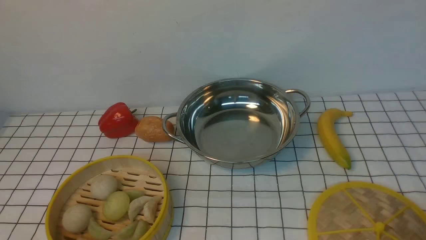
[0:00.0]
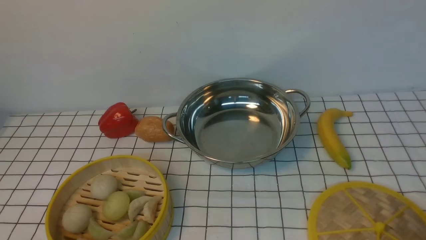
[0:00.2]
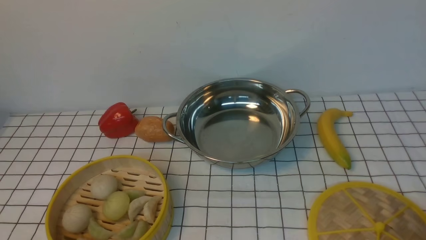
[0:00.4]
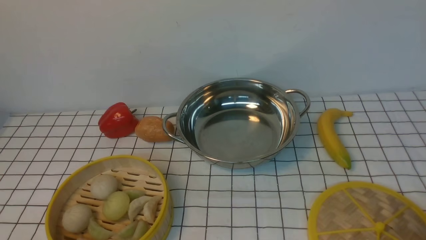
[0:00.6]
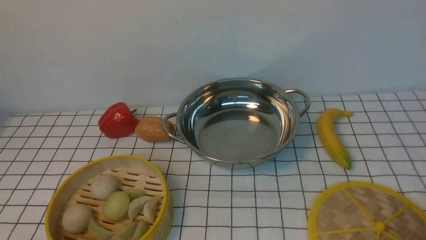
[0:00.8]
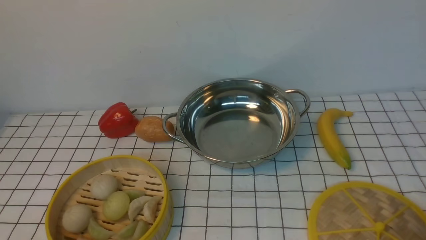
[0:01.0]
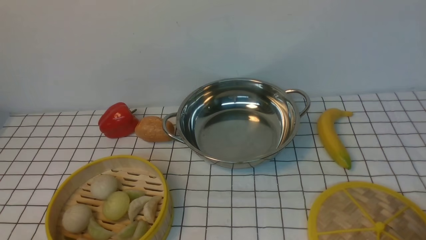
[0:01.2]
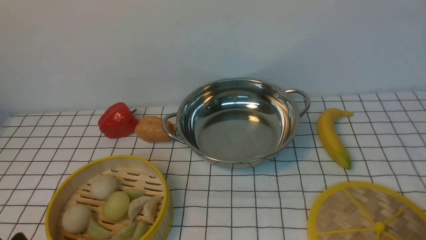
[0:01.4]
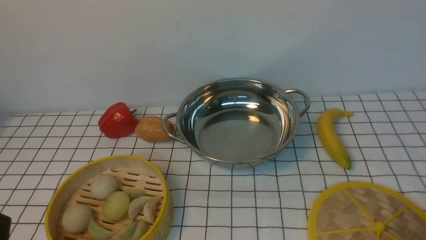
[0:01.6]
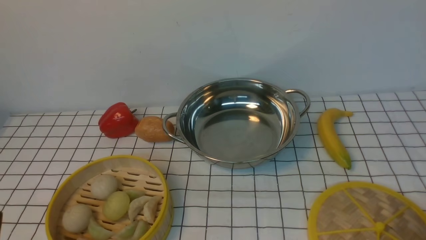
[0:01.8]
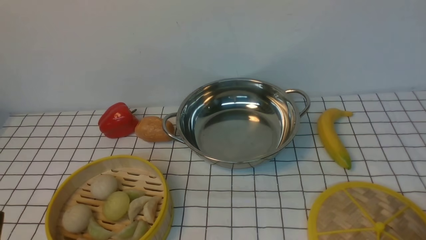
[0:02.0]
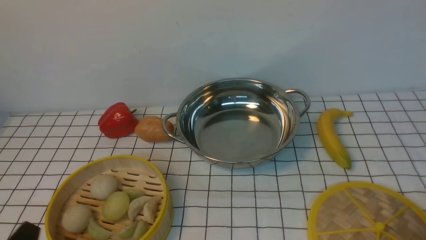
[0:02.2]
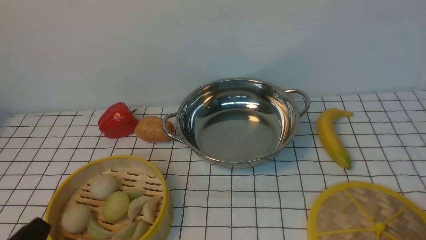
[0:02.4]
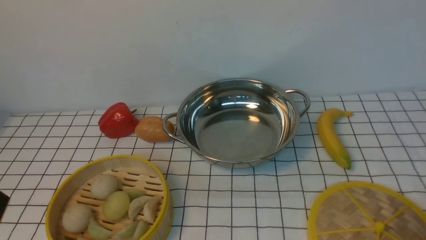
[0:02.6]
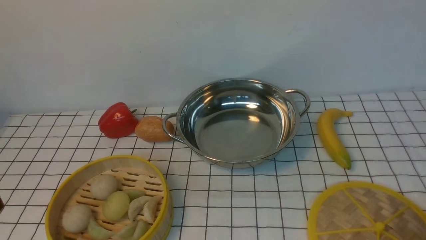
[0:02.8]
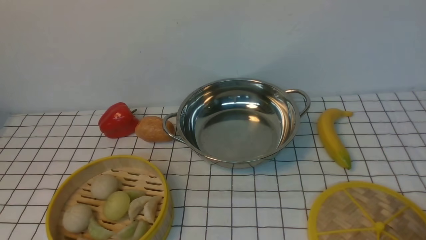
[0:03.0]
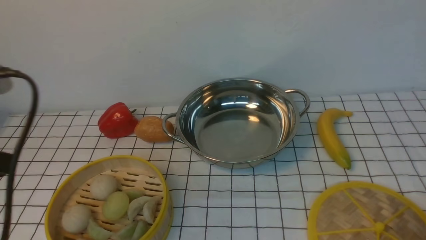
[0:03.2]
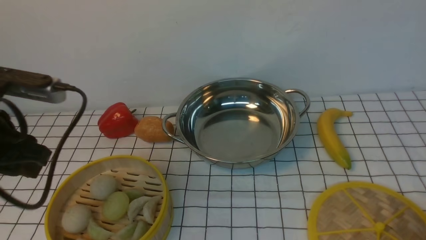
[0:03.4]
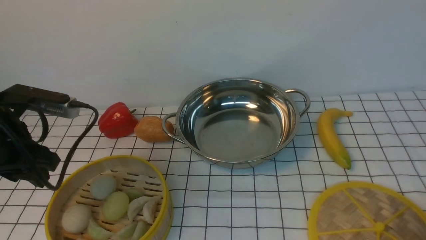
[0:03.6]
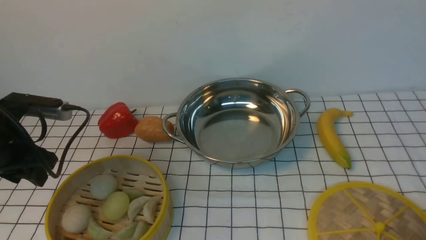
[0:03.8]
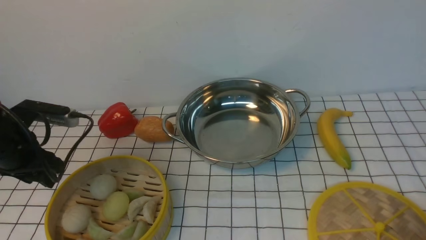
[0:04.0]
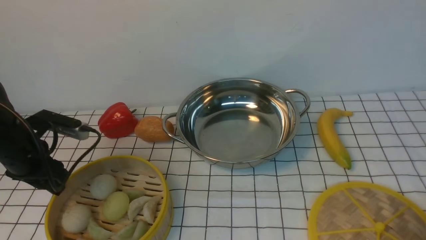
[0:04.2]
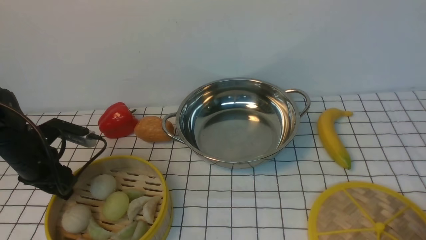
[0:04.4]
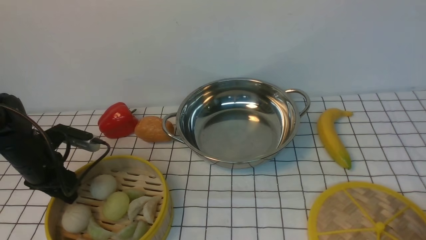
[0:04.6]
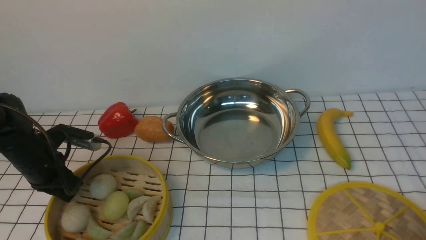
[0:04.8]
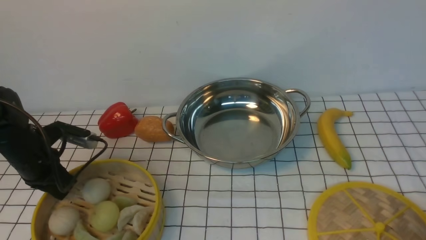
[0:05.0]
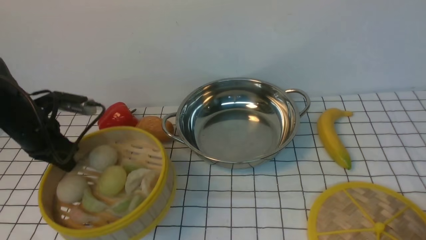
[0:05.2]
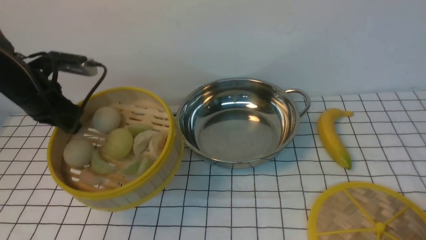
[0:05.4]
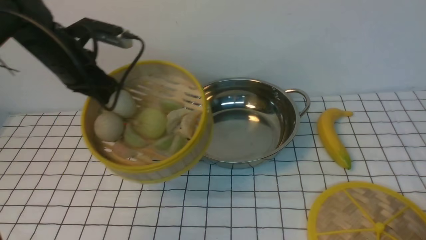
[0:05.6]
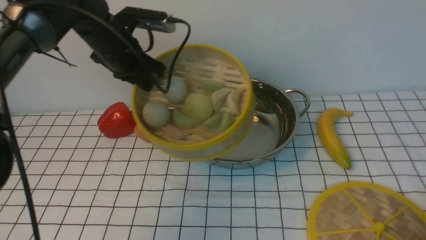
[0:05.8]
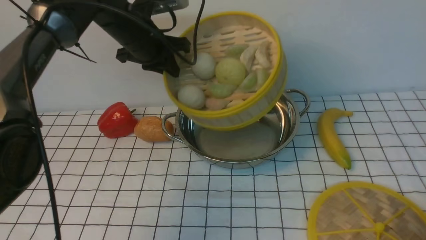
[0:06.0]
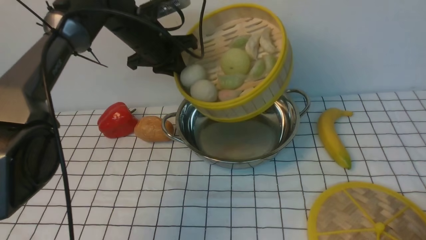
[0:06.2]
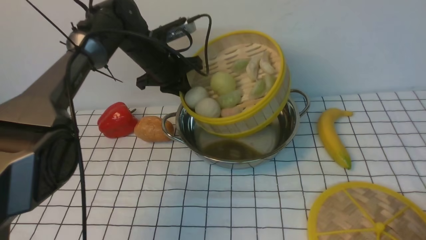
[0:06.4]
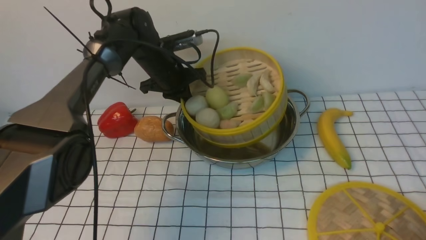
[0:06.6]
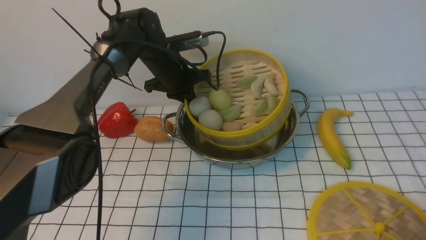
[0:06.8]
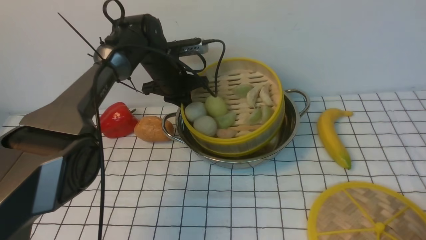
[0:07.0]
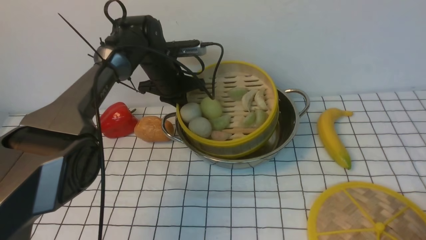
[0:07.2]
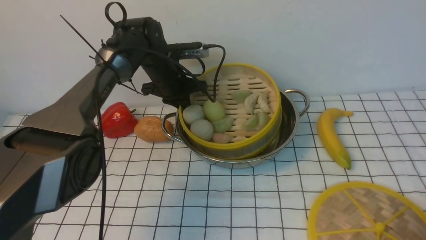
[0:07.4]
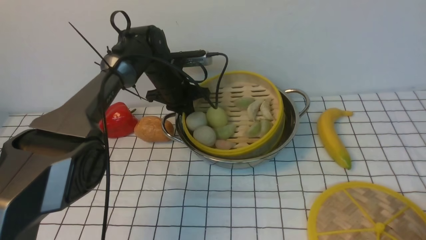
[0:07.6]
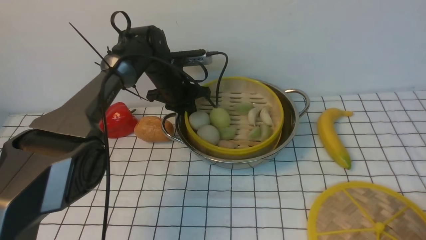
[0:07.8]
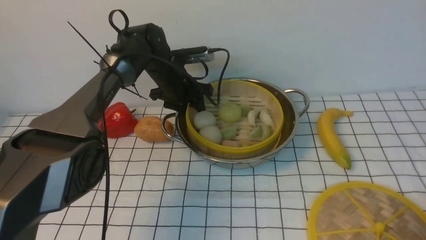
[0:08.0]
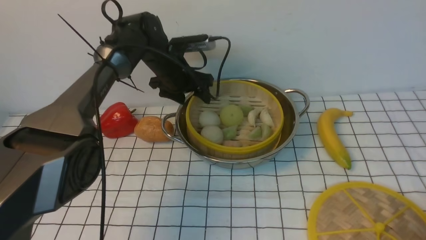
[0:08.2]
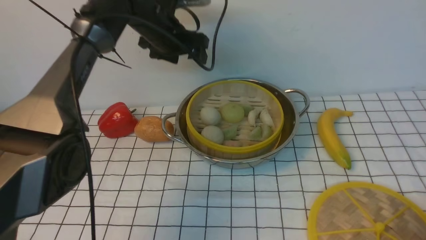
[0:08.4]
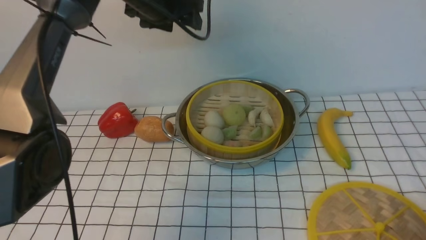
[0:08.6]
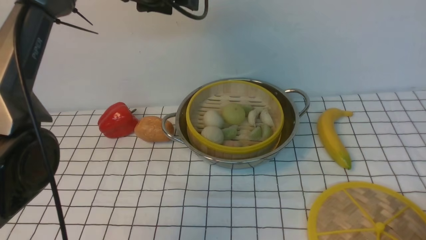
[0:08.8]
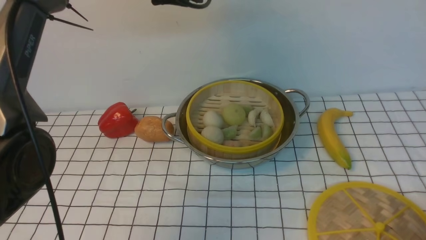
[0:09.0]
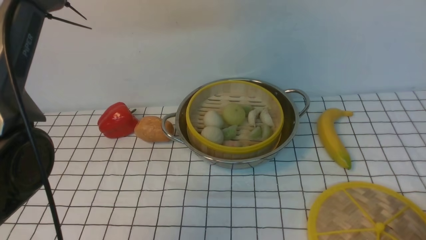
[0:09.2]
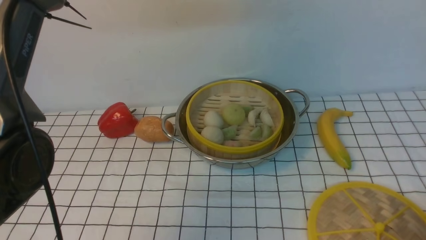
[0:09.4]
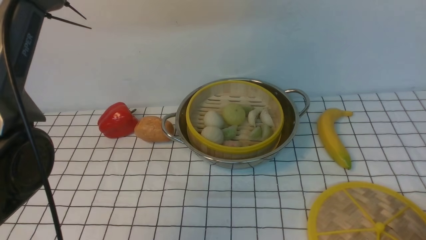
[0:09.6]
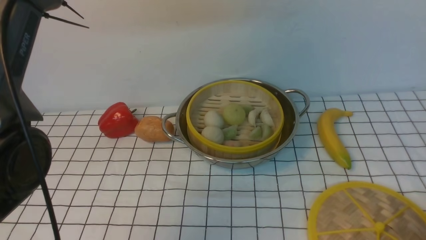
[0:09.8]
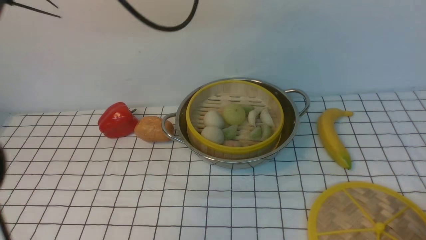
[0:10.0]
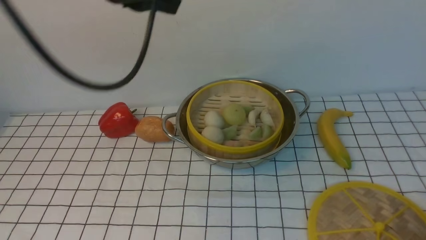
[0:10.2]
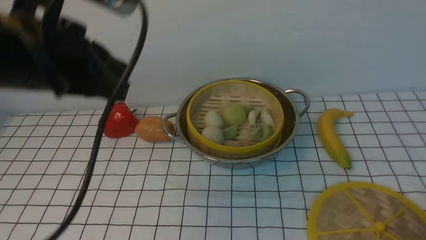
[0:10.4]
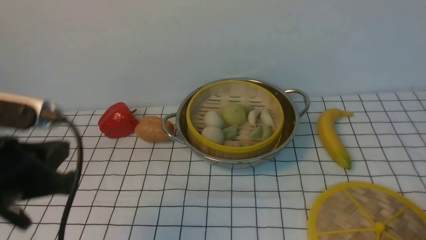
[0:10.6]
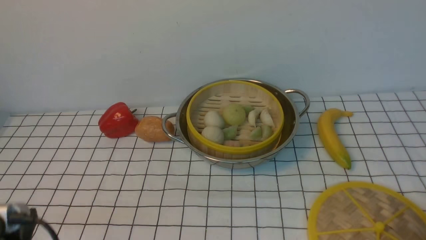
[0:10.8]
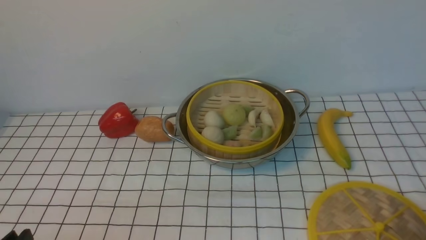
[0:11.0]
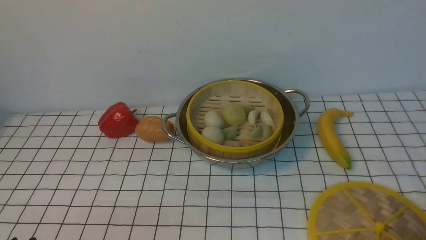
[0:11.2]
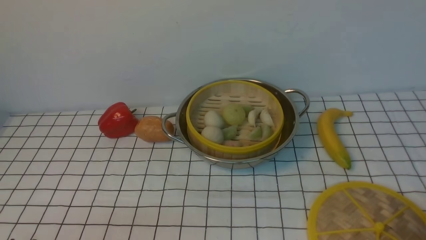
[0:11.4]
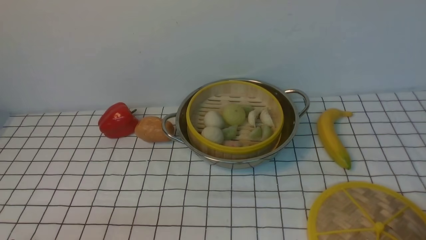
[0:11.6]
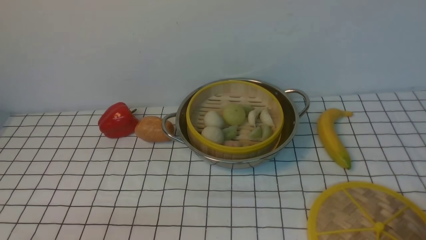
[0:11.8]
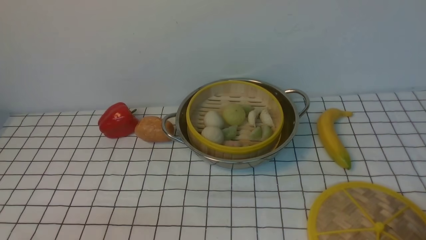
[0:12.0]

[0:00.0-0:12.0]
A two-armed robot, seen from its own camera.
Task of the whole recording: place the steamer in the pot on the white tablecloth, and put the lid on the steamer.
Step, 0:00.0 to 0:05.2: use the left arm to lift the steamer closest to it.
Step, 0:05.4 to 0:08.2: use the left arm to put the steamer into the iron steamer pot in the middle.
0:03.0 to 0:04.4: The left gripper travels forward and downward by approximately 30 cm.
0:04.4 to 0:06.0: The left gripper shifts roughly 25 cm to the right, forward and upward, and closes up.
0:06.0 to 0:07.6: The left gripper is displaced downward by some 10 cm.
0:07.6 to 0:09.0: The left gripper is displaced upward by about 20 cm, and opens, then closes once more.
0:09.0 to 0:10.4: The left gripper is displaced backward and to the left by roughly 25 cm.
0:10.4 to 0:12.0: The left gripper shifts some 25 cm downward and backward, and opens its fingers.

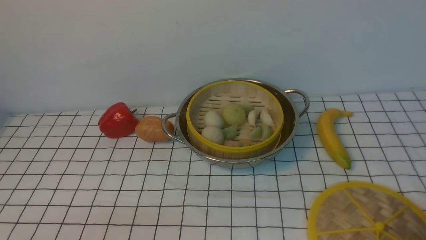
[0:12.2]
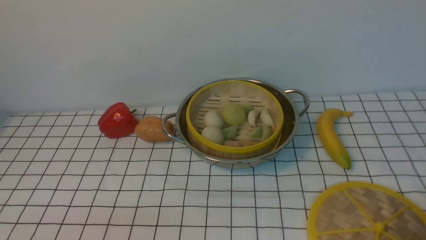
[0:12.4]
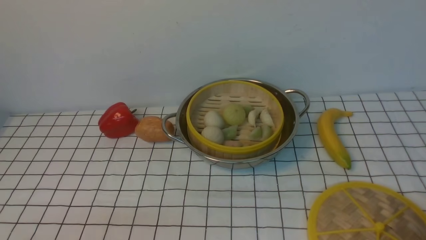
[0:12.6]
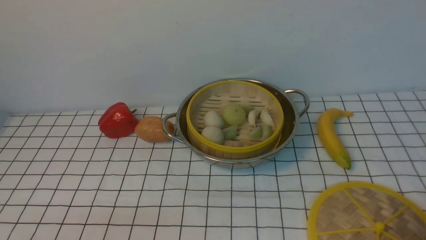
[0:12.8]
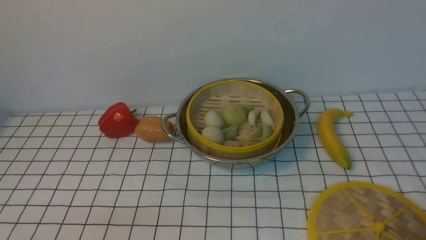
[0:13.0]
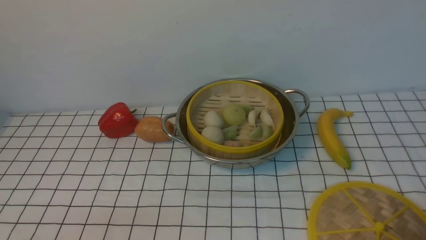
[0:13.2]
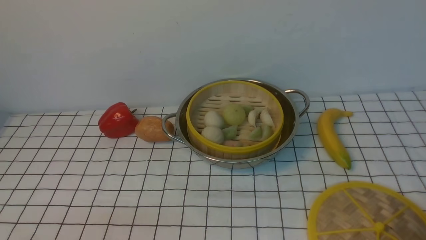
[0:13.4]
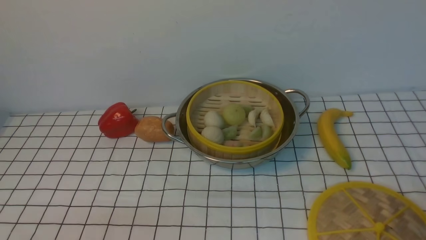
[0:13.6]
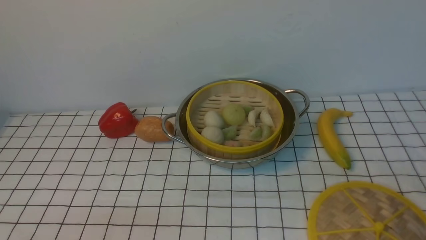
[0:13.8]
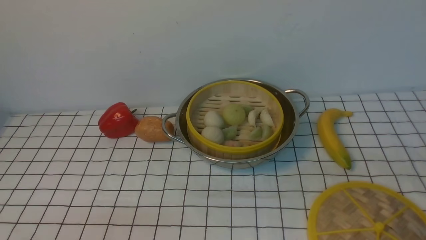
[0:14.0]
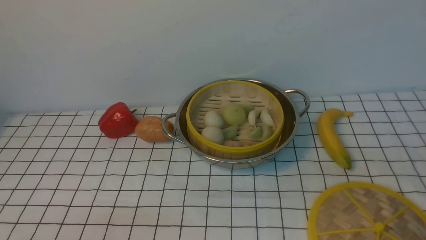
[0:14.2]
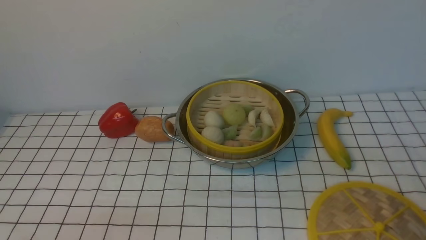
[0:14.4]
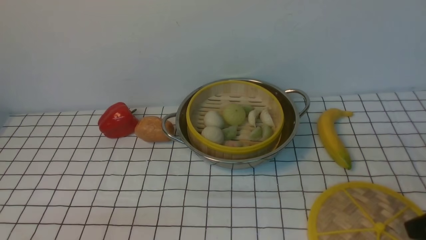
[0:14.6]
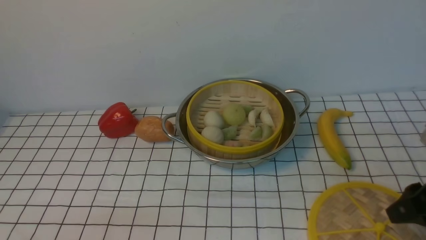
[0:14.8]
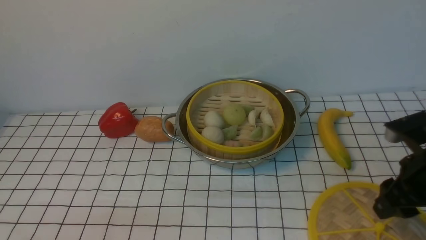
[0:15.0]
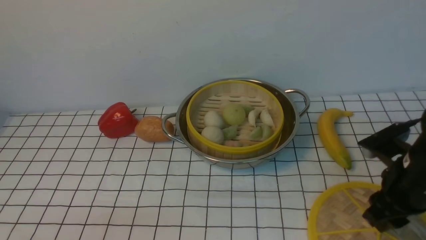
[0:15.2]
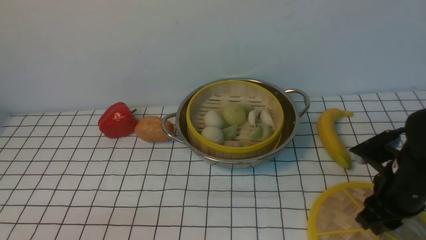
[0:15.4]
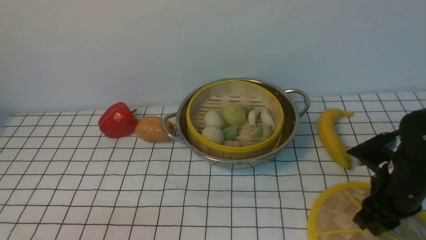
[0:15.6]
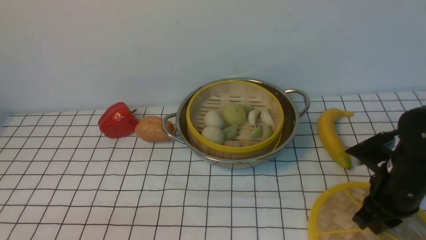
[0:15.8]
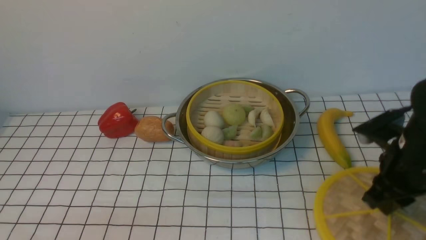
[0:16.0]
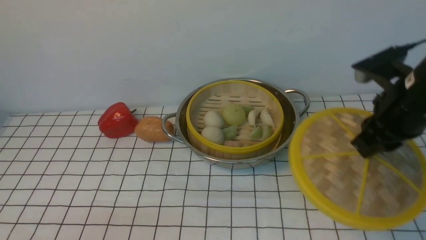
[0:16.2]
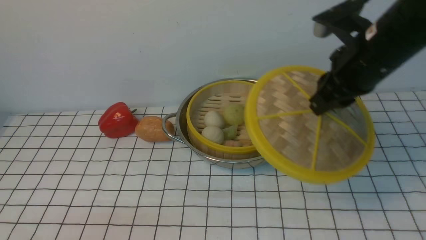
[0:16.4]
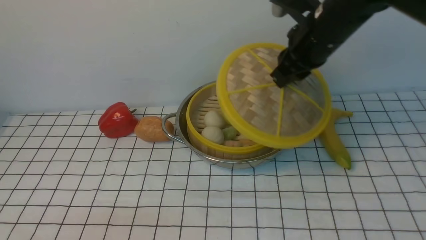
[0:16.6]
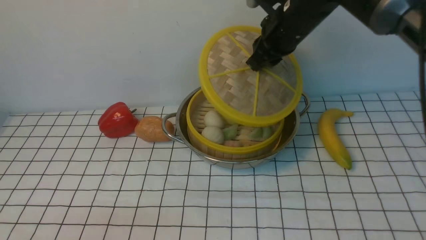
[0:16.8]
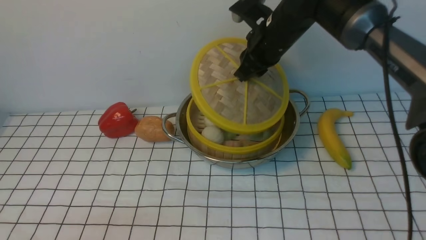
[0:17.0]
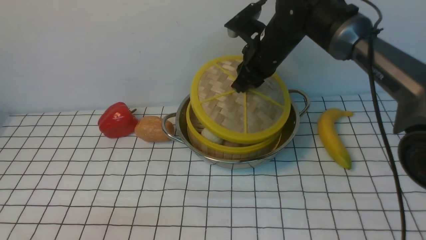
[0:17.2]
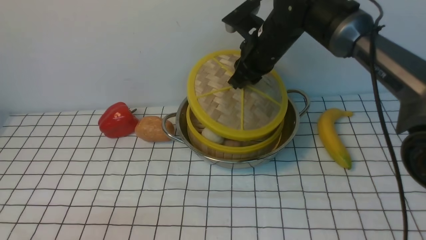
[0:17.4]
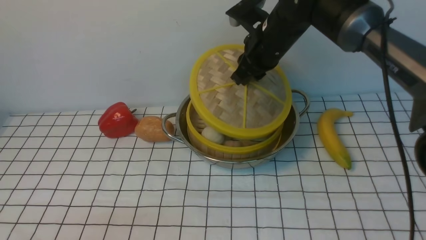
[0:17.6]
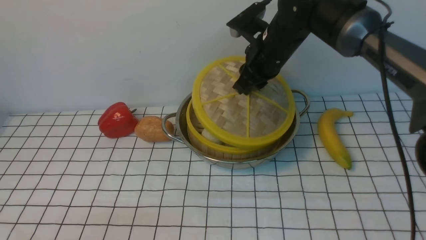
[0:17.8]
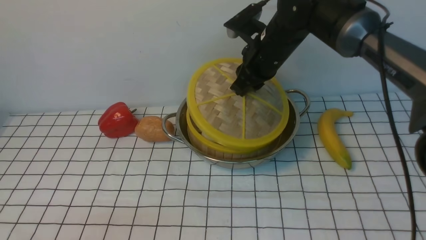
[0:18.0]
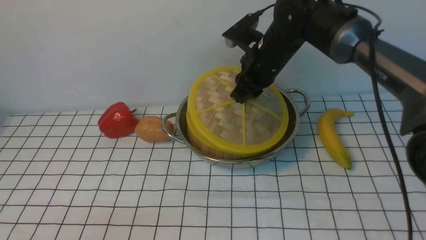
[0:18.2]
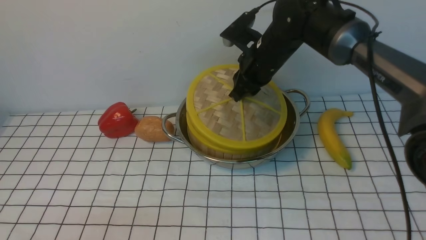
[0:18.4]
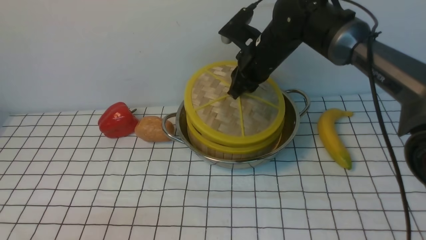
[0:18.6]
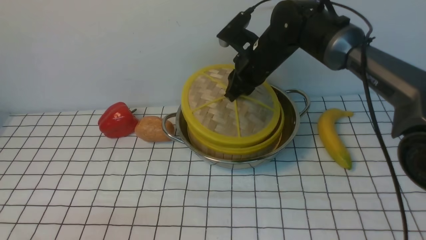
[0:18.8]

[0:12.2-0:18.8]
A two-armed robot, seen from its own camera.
Task of the whole recording: place the steamer in the pot on the white tablecloth, and put the lid on the steamer.
Step, 0:12.2 to 0:16.0: use the right arm to lift the lid of the steamer.
0:13.8 to 0:15.4: The right gripper moves forward and downward, roughly 25 cm.
0:15.4 to 0:17.2: The right gripper moves forward, to the left and upward, some 30 cm, and closes.
0:17.2 to 0:18.8: The grippers stay close to where they were, moving slightly.
